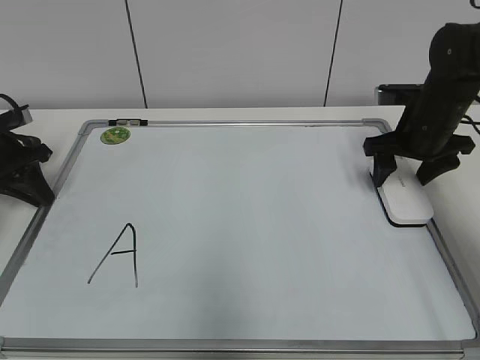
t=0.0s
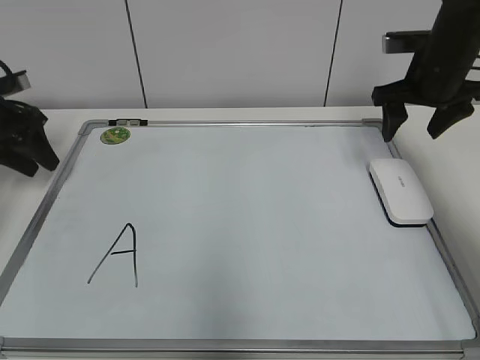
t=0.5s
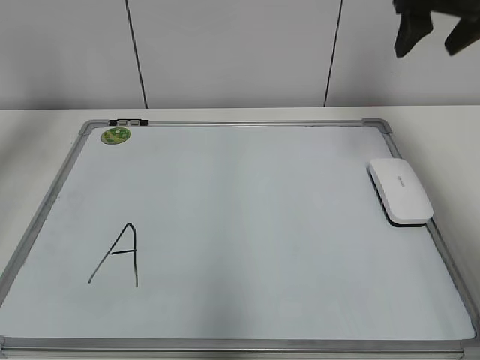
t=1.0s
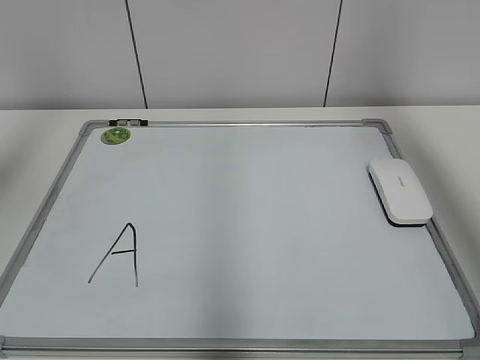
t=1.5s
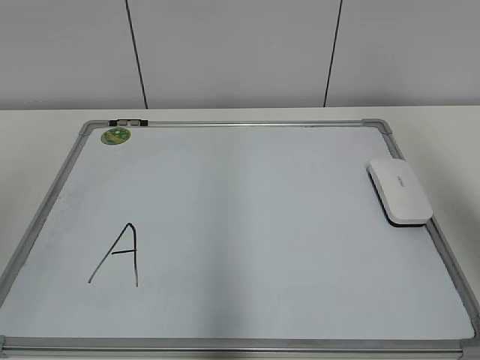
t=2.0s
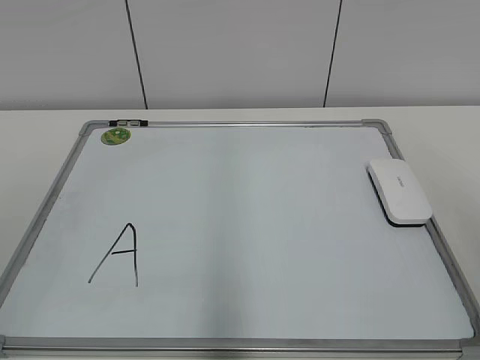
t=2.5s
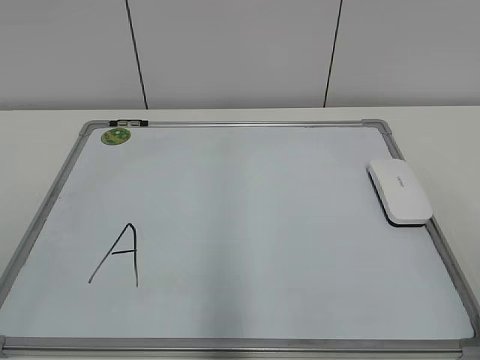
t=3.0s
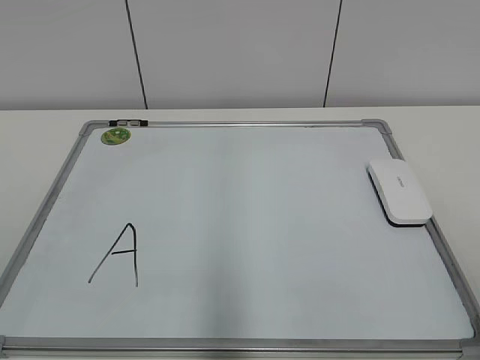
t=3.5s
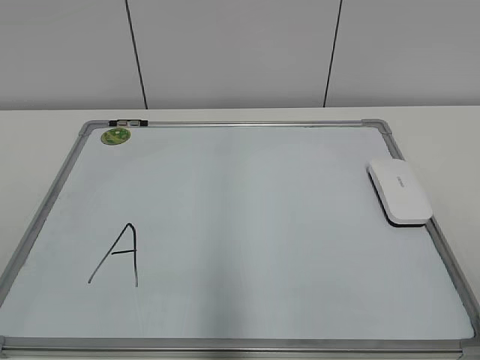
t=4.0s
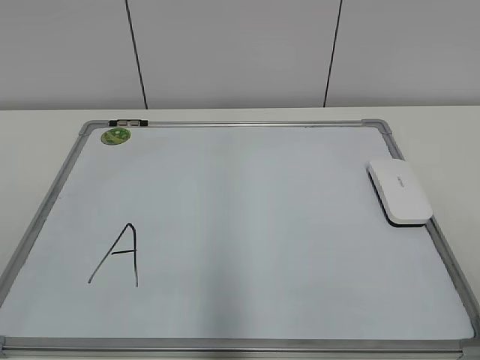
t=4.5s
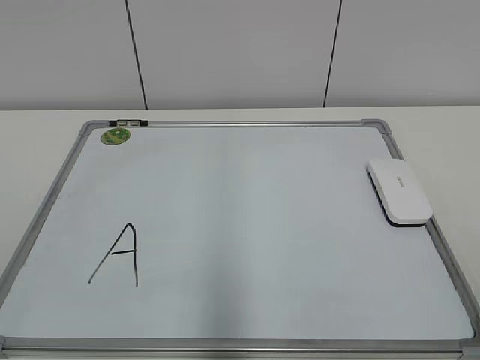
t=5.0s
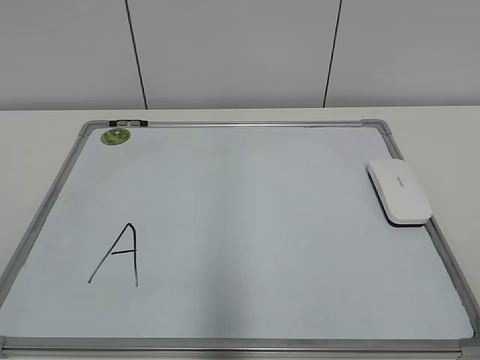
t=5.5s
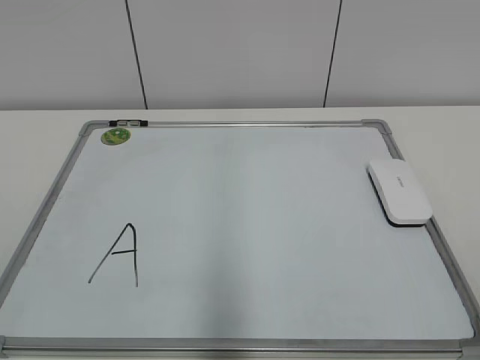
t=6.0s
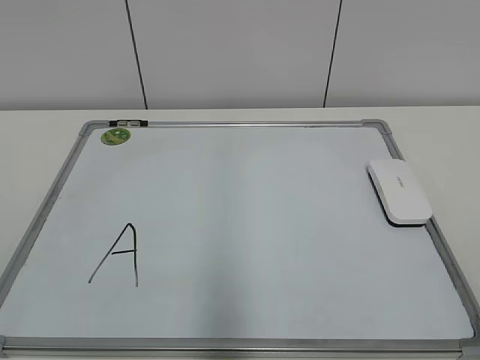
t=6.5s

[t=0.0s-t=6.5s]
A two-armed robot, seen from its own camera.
Task of the whole recording: pick up the eraser on the blackboard and erase the letter "a".
t=0.0s to t=2.0s: The right gripper heads upward and backward, covering roughly 35 cm. Meanwhile the left gripper goes some 40 cm backward and upward, and opens.
t=2.0s to t=4.5s: The right gripper heads downward and backward, covering approximately 25 cm.
